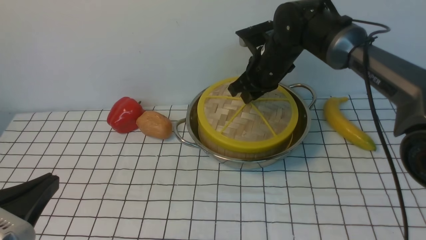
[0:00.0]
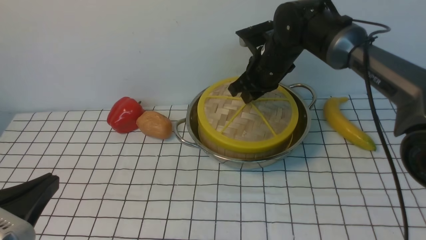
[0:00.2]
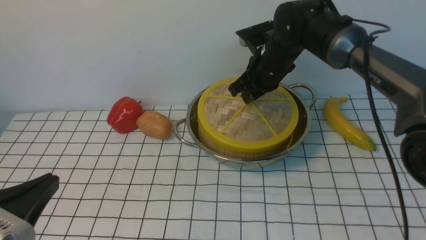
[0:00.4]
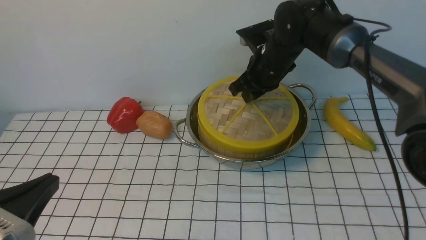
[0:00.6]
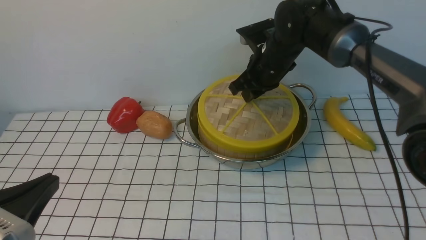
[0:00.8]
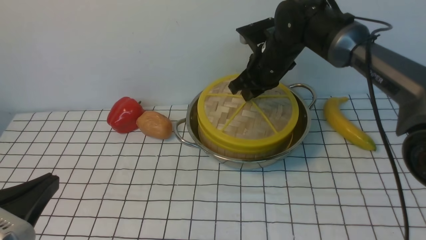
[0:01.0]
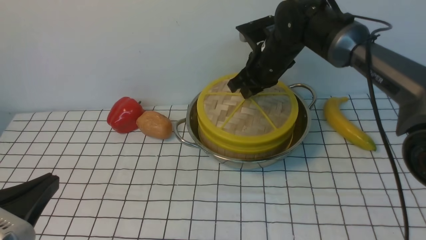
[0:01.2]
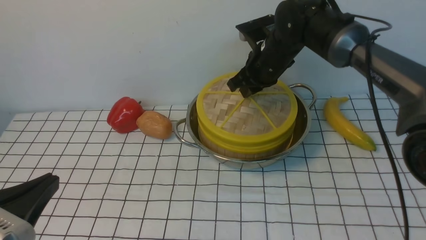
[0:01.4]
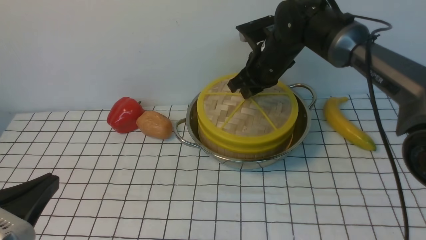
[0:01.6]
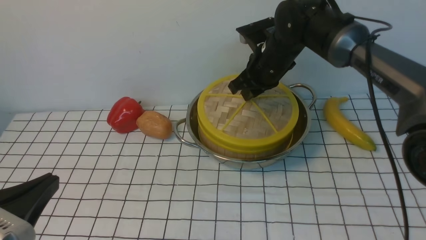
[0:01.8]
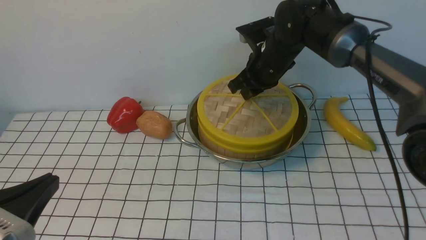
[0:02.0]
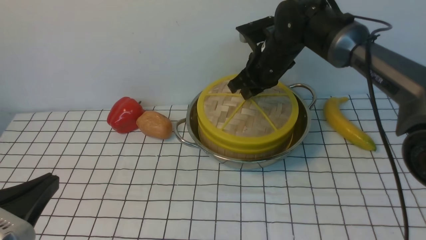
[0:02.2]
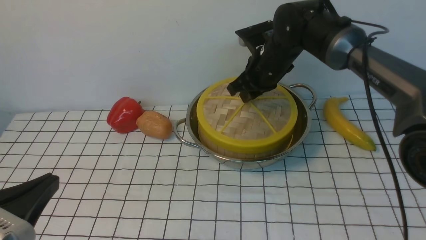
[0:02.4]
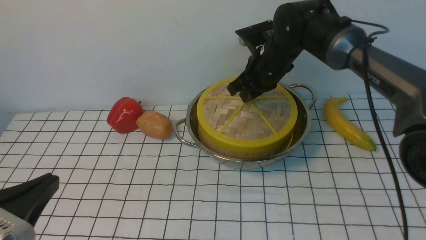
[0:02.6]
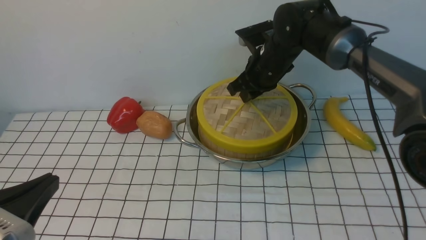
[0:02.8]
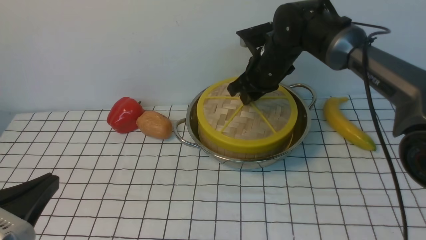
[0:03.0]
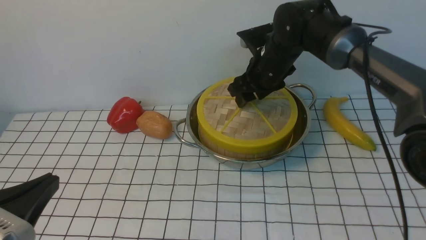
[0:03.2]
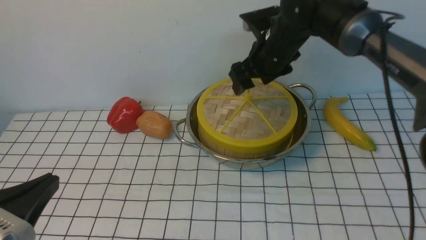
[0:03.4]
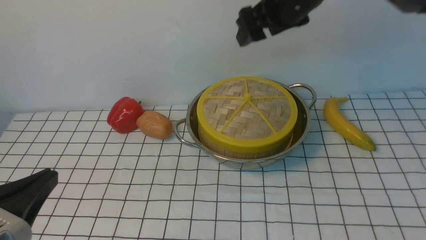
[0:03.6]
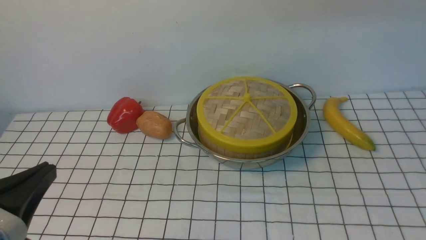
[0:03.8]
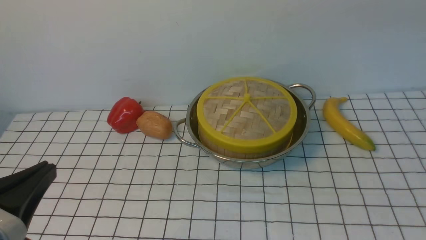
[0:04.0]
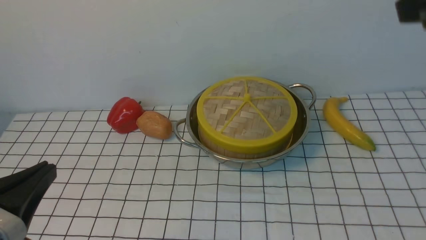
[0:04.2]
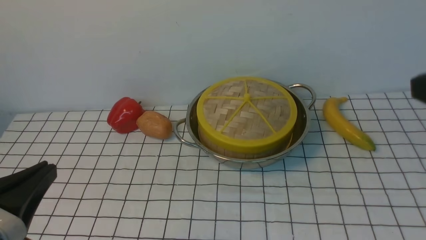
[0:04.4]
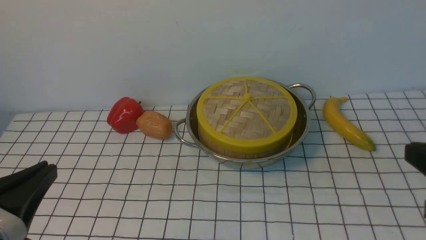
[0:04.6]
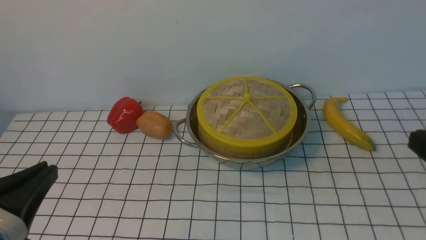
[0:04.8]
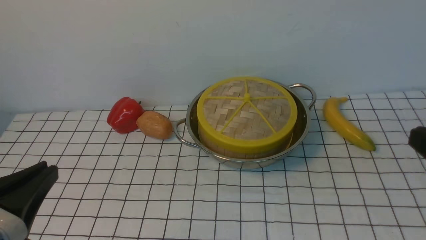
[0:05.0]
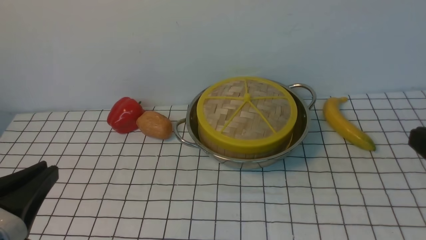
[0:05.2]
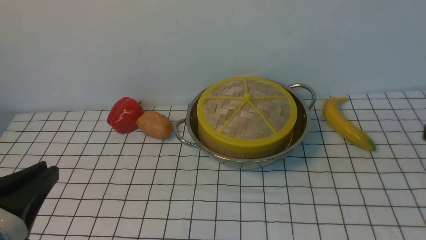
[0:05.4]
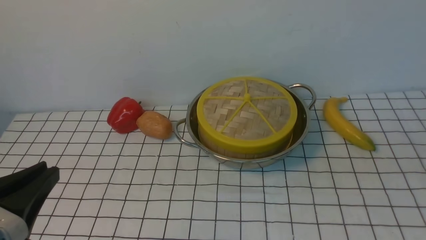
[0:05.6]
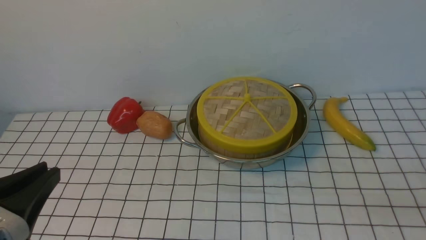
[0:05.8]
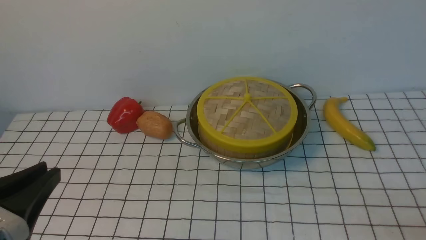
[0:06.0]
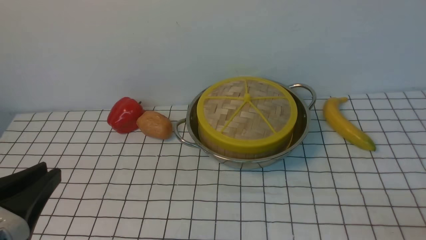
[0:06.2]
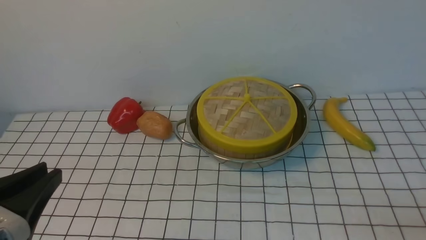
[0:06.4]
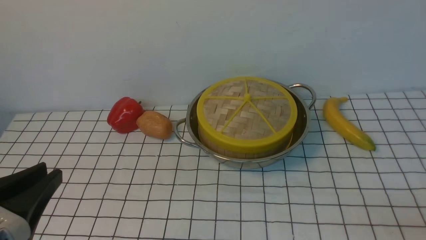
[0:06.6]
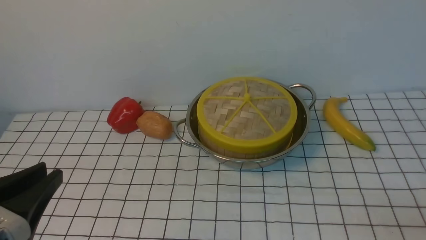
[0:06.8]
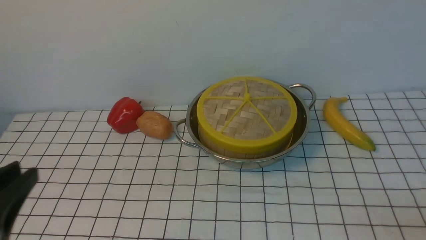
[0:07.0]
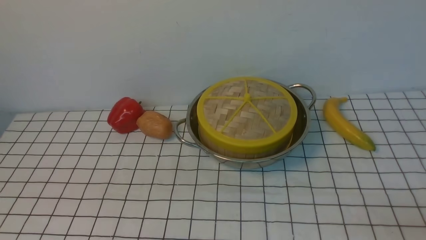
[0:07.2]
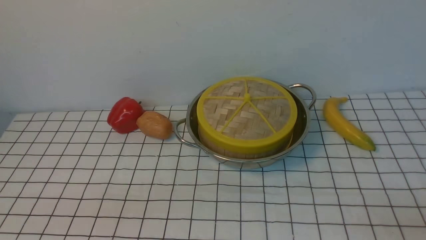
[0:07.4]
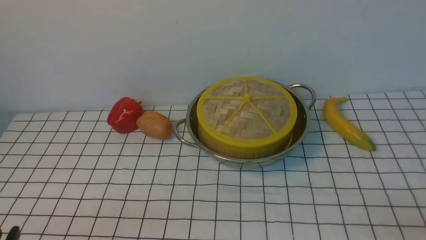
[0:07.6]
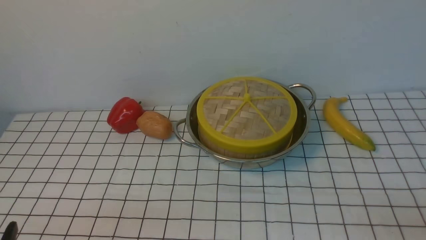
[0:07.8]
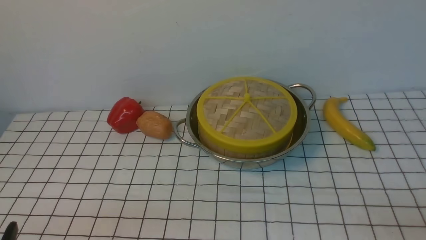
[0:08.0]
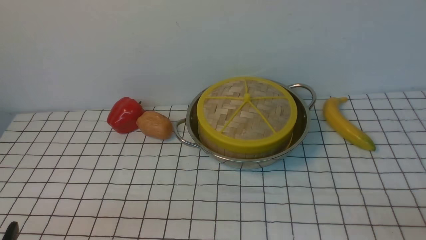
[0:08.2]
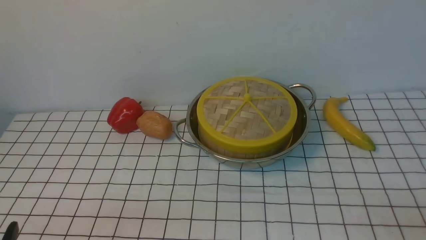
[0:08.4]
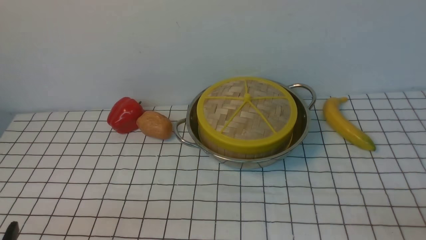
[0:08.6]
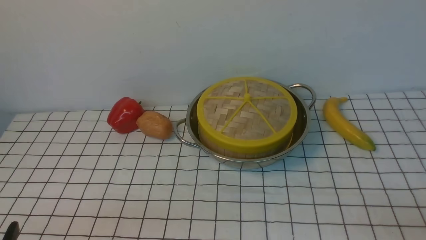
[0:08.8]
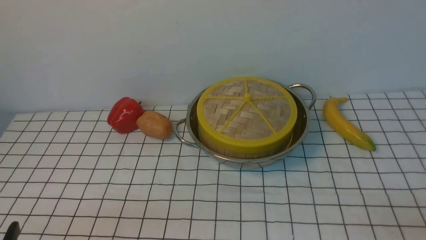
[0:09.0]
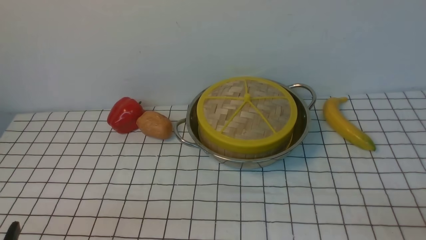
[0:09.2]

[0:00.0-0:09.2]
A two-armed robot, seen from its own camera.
Task of the whole recording: place the steamer in the pot on the white tablecloth, and put the lid on the steamer.
Step, 0:00.0 to 0:03.4: use the right arm to place the steamer lid on the steamer.
0:00.0 to 0:03.0: Both grippers stay put.
0:03.0 to 0:04.6: The right gripper goes roughly 35 cm backward and to the right, and closes its fingers.
0:06.2 to 0:07.6: The left gripper moves downward, approximately 10 cm.
0:07.6 to 0:09.2: Neither gripper changes place.
